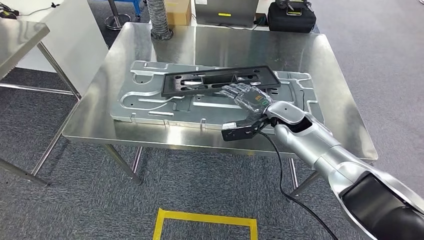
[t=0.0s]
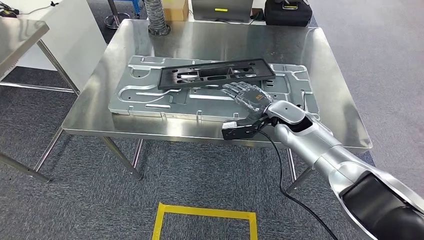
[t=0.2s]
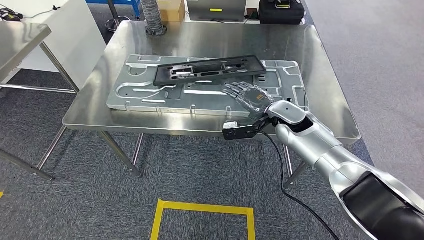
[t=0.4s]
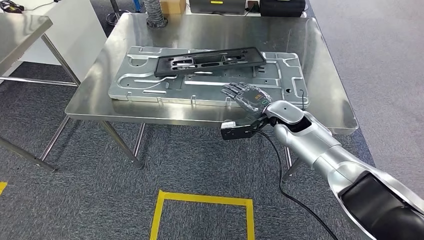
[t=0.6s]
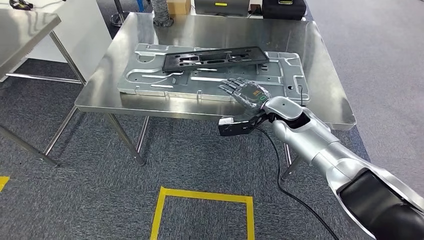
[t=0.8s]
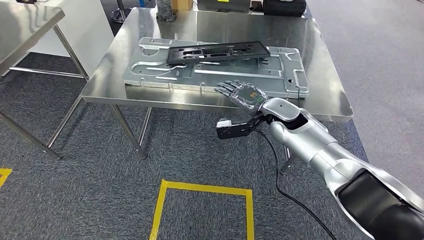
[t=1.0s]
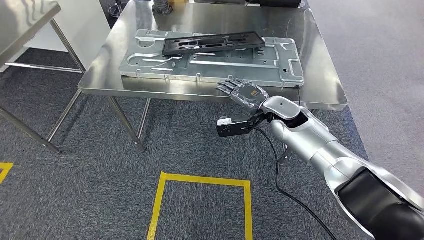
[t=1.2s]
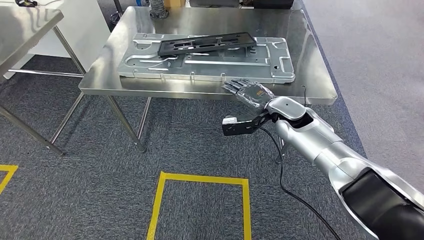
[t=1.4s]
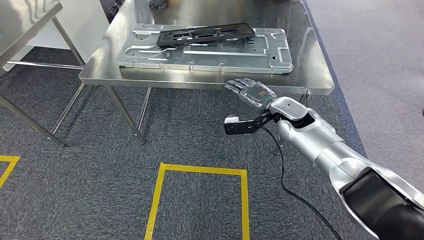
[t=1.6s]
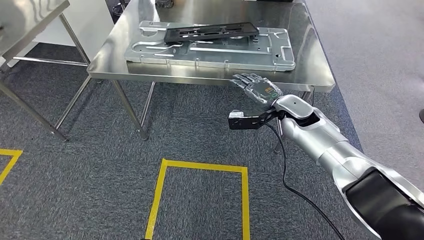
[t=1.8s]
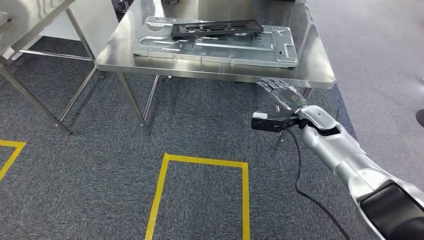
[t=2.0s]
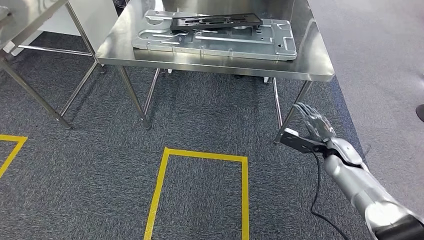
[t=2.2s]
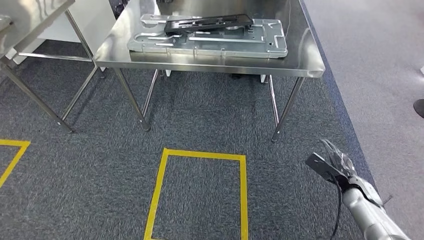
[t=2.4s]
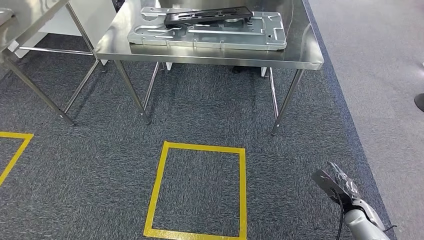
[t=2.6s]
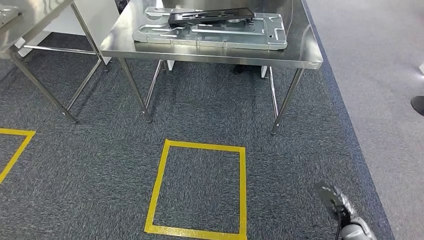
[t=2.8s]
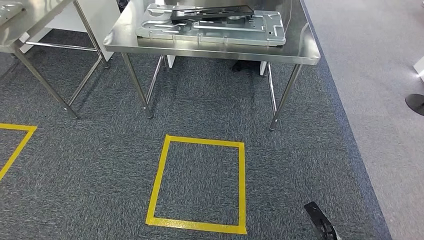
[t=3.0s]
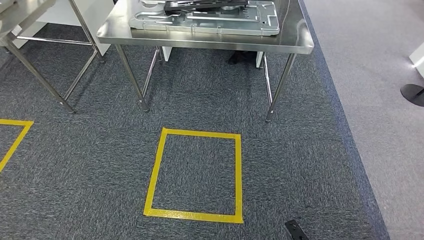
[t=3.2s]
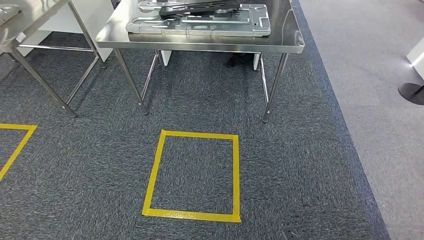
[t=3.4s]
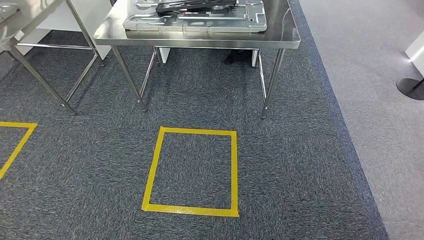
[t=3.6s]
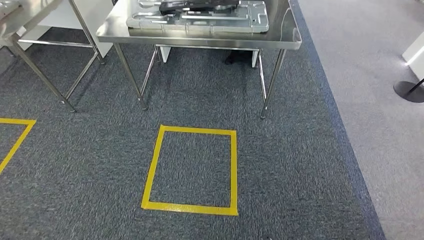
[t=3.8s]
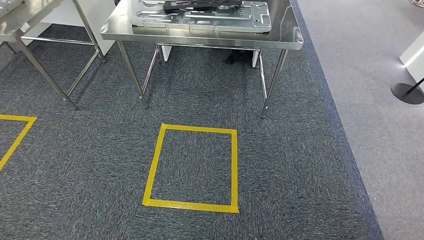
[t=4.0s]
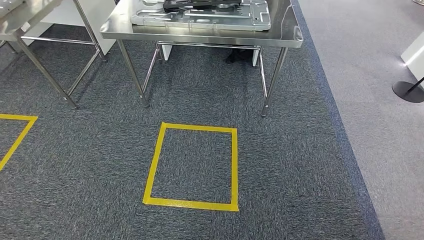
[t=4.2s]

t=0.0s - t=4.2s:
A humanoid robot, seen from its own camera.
Step, t=0.0s - t=4.2s: Move to the initial position of the shelf.
